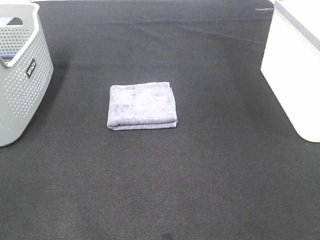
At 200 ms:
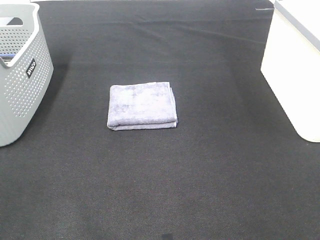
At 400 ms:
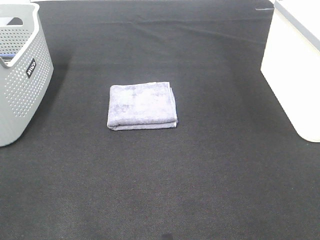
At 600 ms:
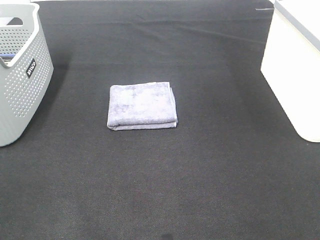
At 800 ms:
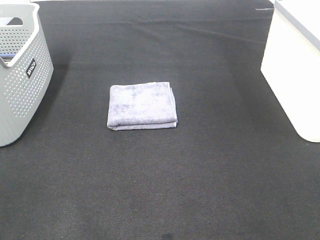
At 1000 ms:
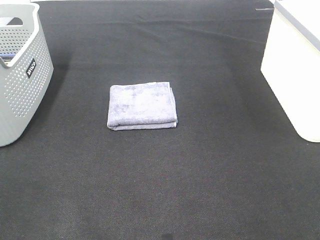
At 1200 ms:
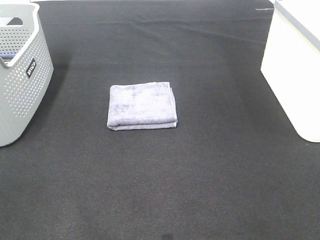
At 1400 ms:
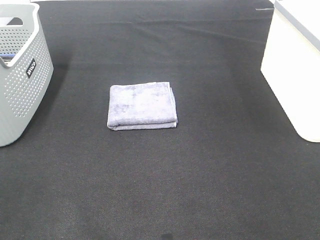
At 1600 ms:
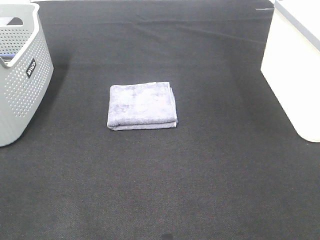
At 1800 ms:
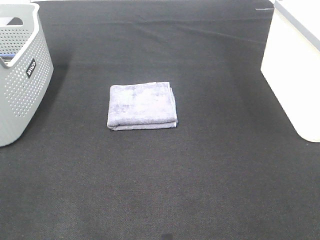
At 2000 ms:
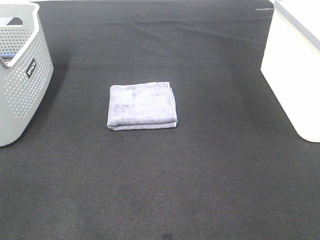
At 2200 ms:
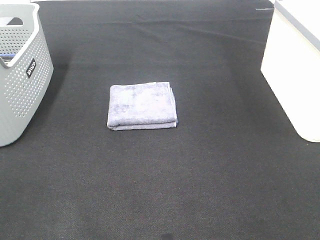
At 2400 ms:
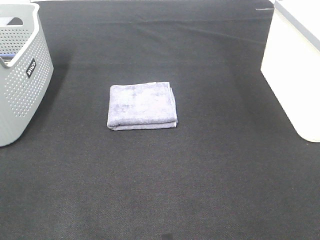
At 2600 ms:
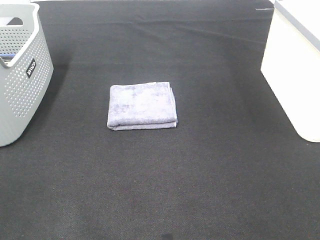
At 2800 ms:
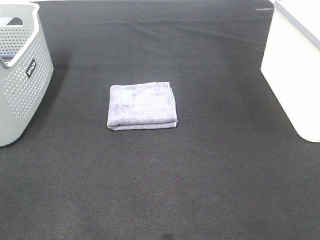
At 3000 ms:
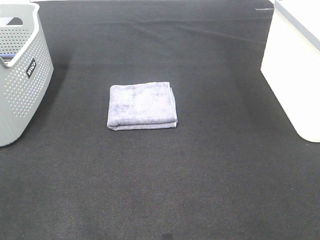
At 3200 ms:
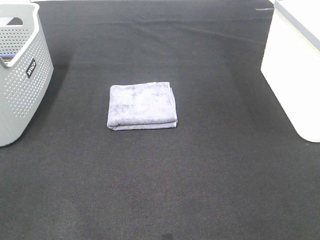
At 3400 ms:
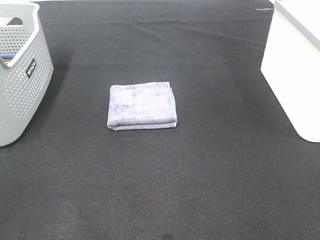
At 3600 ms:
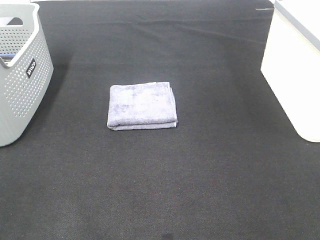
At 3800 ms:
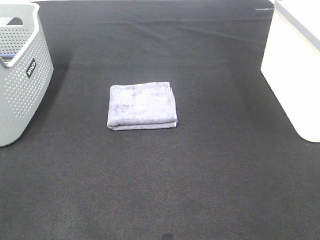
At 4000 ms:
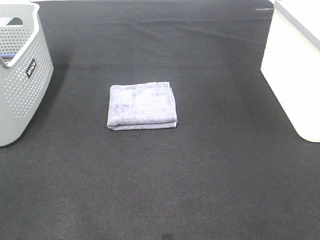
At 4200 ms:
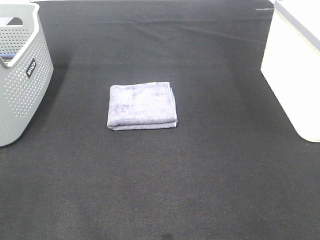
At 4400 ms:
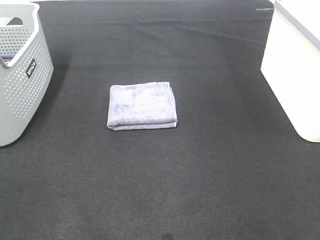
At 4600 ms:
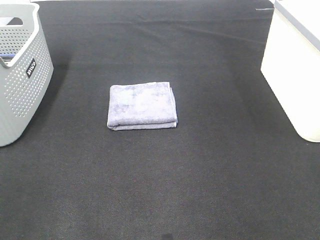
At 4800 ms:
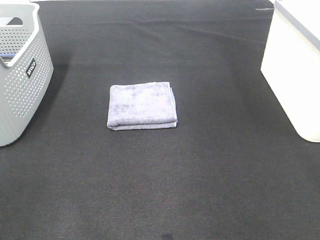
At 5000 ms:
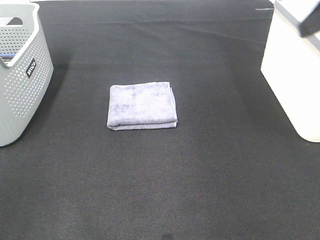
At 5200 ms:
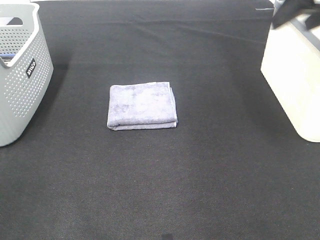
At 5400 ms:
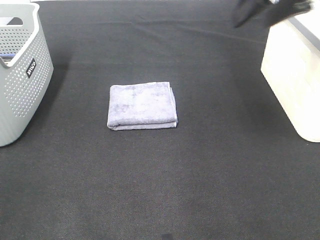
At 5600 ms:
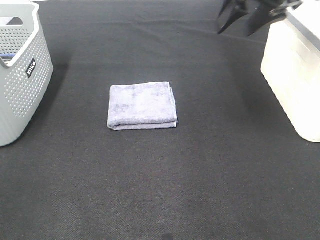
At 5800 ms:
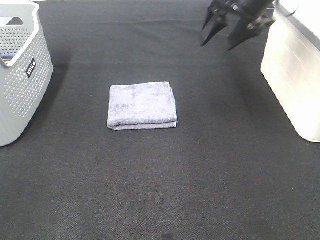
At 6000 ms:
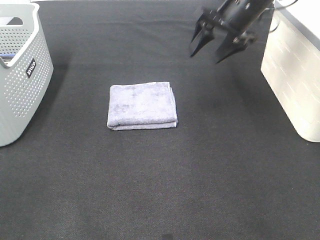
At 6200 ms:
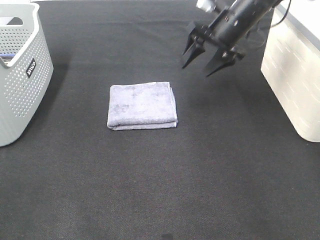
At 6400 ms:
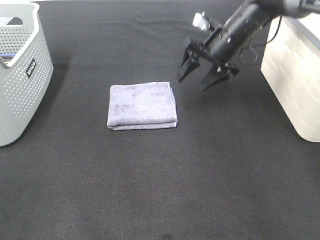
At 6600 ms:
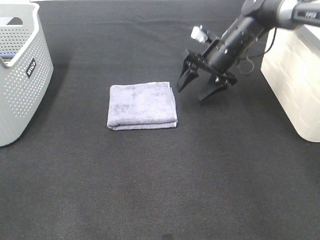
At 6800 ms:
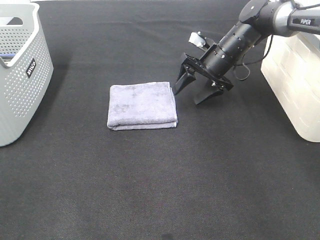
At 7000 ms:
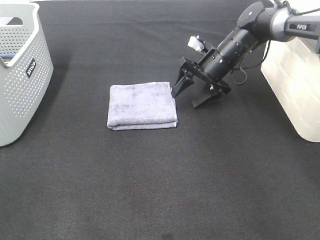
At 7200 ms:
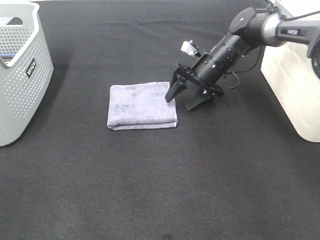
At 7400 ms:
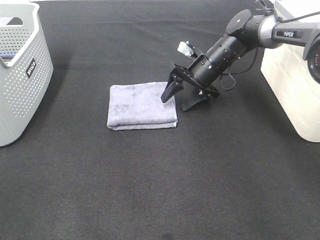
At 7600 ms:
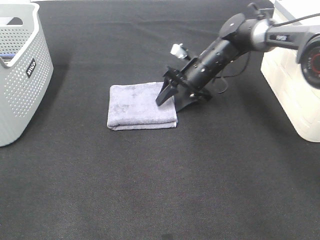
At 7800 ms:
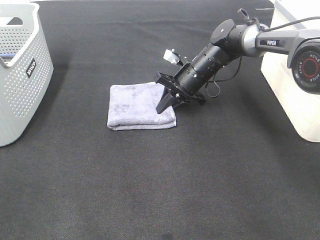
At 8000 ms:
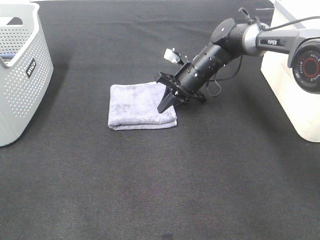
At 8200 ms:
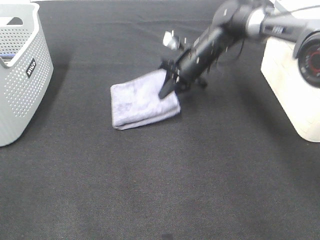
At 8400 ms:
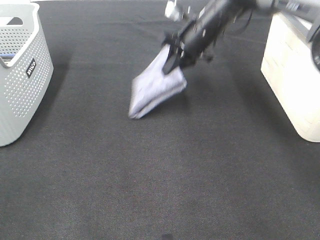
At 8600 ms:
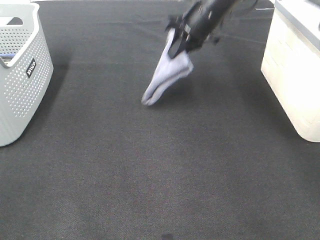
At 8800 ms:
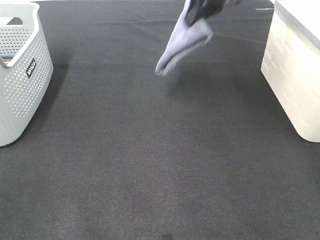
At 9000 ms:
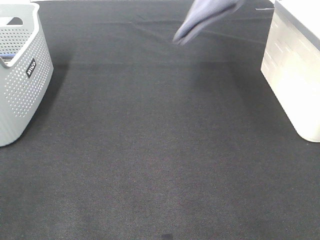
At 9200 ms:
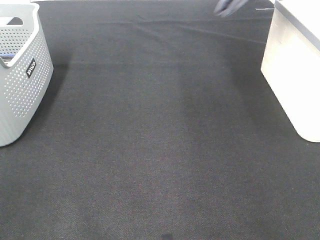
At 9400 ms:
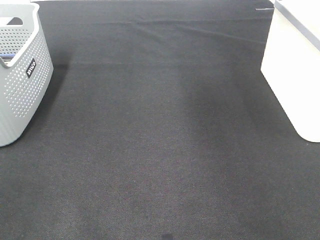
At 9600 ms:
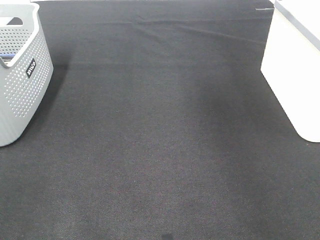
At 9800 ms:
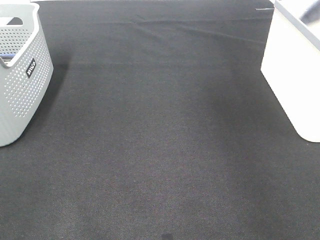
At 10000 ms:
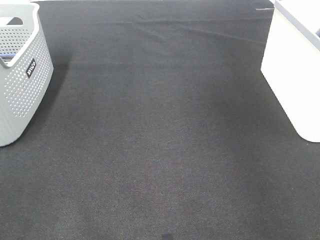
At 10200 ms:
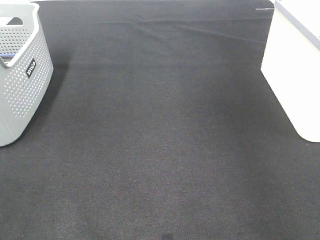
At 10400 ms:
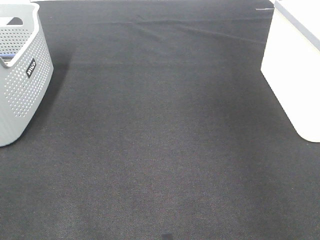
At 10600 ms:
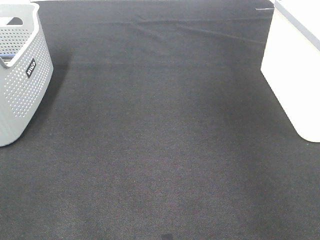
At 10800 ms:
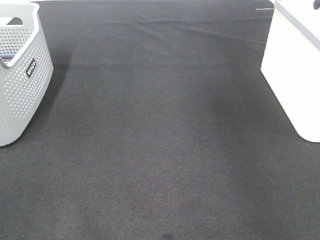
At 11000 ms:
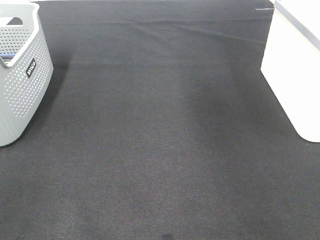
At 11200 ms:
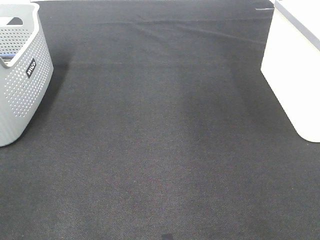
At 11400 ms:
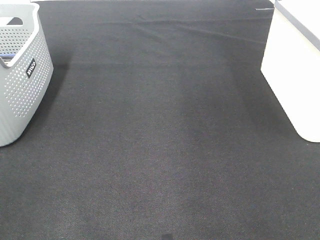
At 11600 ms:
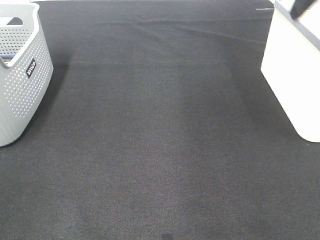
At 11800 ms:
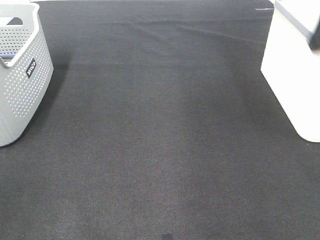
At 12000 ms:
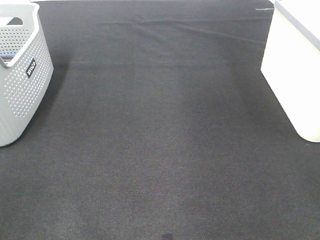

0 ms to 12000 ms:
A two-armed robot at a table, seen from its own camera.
Step, 0 ms to 7800 ms: Right hand: grab the folded grey towel.
Step, 8000 ms to 10600 ms: Right hand: place the grey towel in right basket.
0 ms to 3000 ms: Both grippers stay put.
4400 ms to 6000 ms: The right gripper shifts roughly 35 cm forward.
6000 ms to 7600 ms: The right gripper travels downward and to the left by approximately 15 cm.
7600 ms to 9000 ms: The right gripper shifts approximately 30 cm upward, and closes its fingers.
9000 ms to 10400 ms: The right gripper is displaced to the right by approximately 20 cm, and opens up.

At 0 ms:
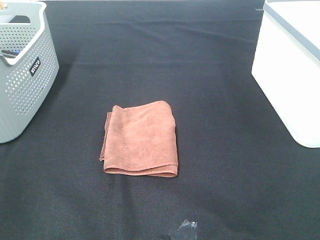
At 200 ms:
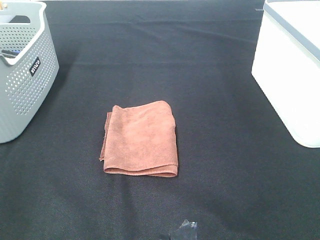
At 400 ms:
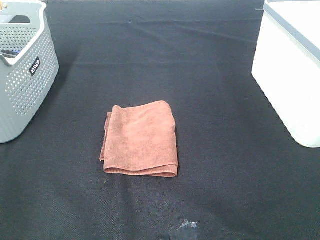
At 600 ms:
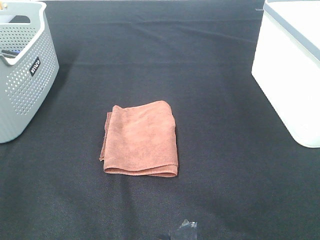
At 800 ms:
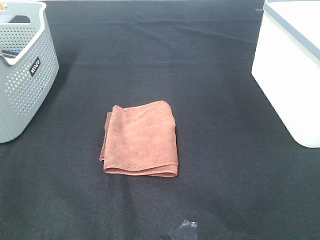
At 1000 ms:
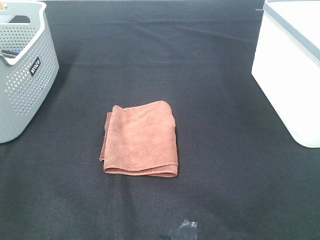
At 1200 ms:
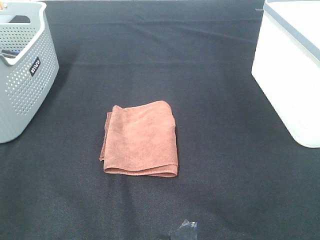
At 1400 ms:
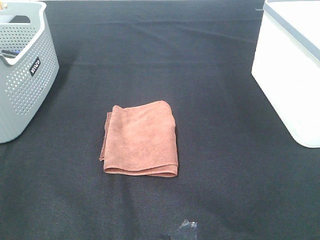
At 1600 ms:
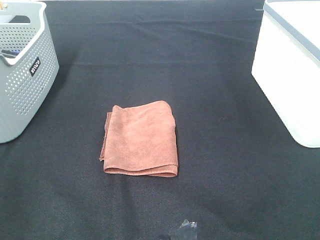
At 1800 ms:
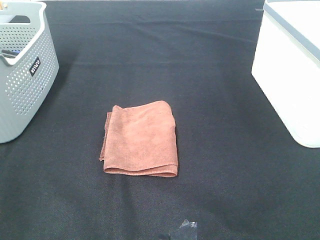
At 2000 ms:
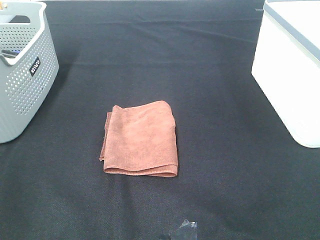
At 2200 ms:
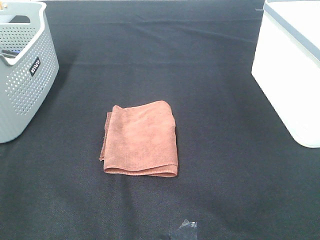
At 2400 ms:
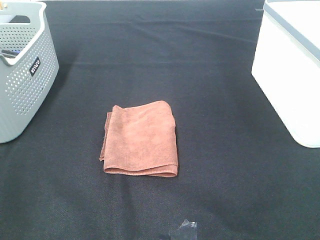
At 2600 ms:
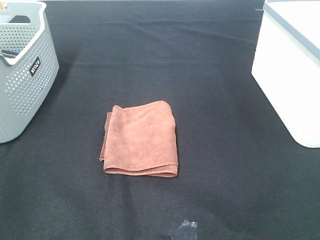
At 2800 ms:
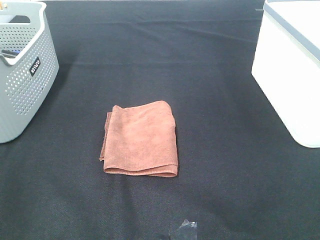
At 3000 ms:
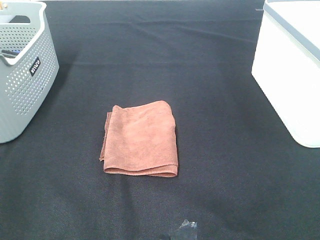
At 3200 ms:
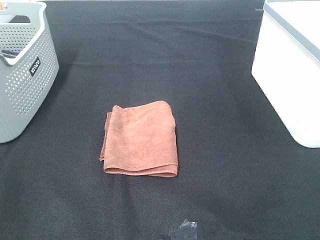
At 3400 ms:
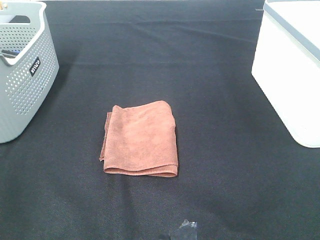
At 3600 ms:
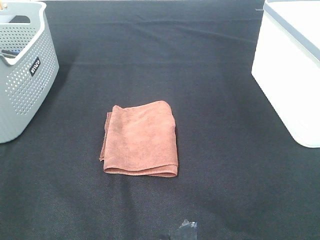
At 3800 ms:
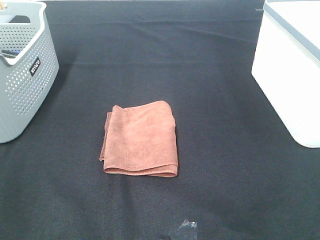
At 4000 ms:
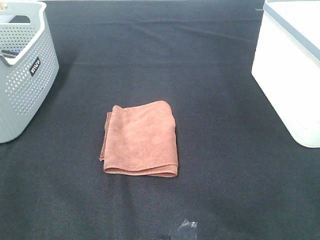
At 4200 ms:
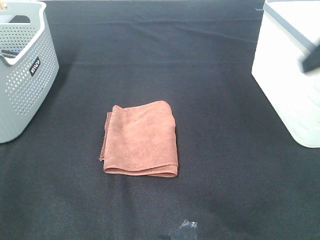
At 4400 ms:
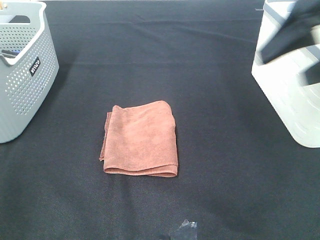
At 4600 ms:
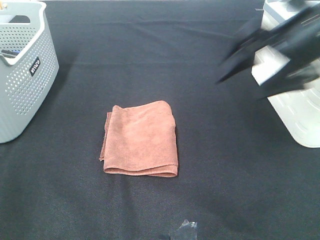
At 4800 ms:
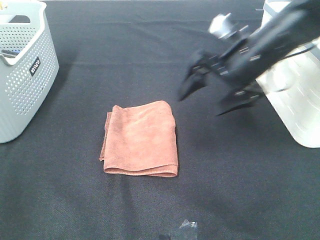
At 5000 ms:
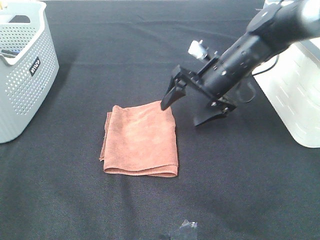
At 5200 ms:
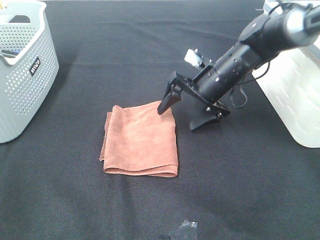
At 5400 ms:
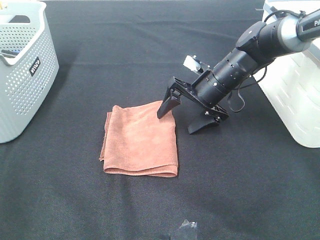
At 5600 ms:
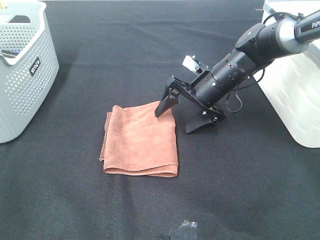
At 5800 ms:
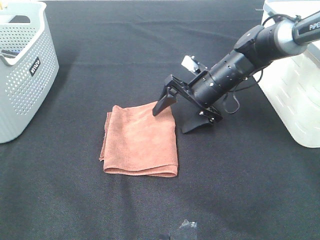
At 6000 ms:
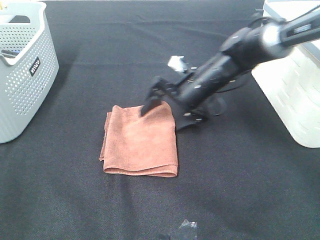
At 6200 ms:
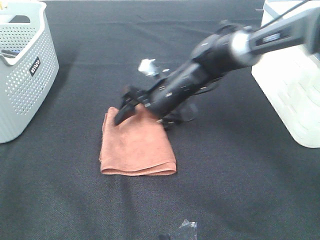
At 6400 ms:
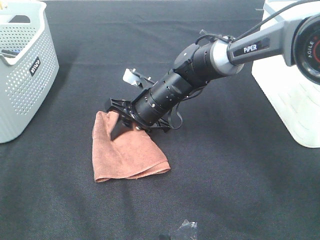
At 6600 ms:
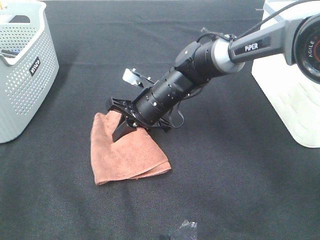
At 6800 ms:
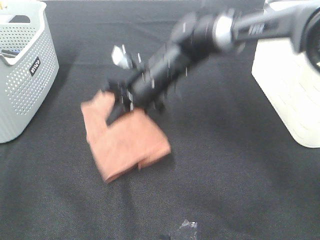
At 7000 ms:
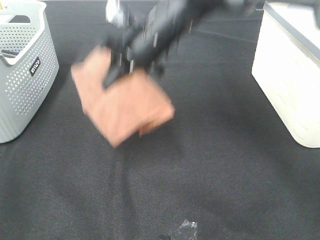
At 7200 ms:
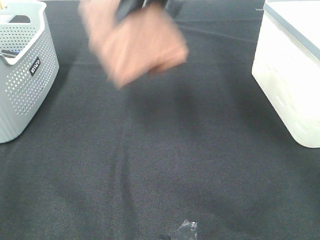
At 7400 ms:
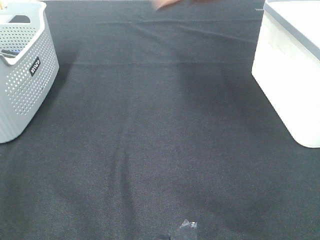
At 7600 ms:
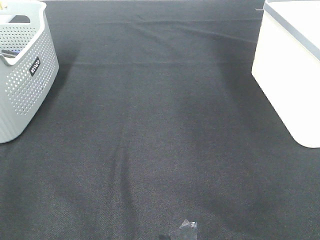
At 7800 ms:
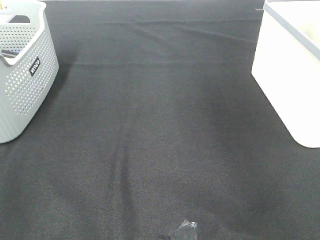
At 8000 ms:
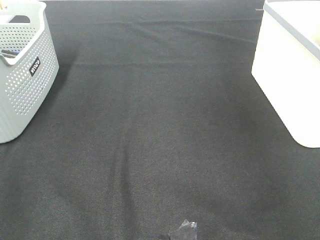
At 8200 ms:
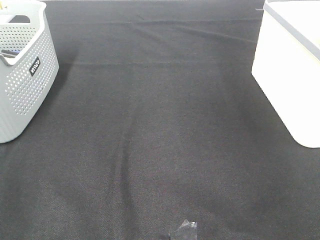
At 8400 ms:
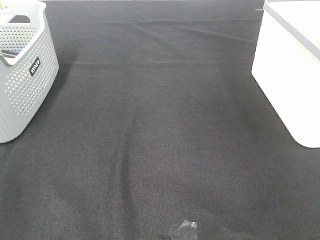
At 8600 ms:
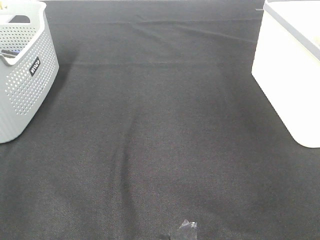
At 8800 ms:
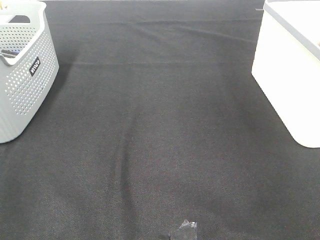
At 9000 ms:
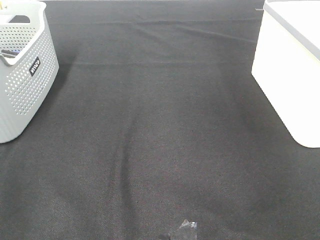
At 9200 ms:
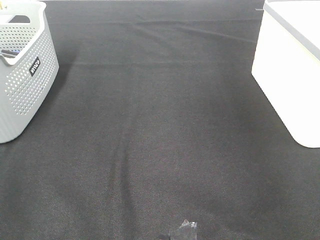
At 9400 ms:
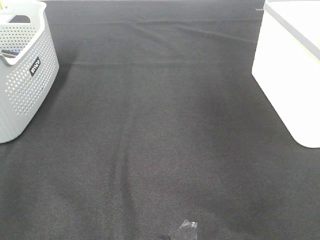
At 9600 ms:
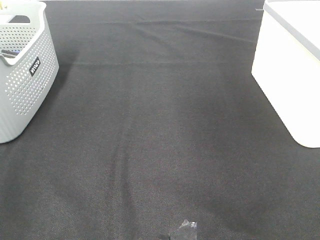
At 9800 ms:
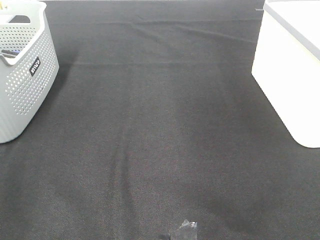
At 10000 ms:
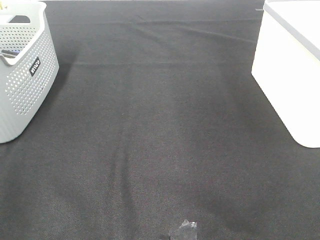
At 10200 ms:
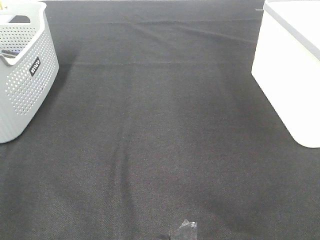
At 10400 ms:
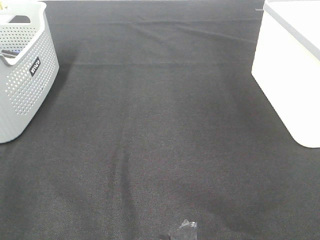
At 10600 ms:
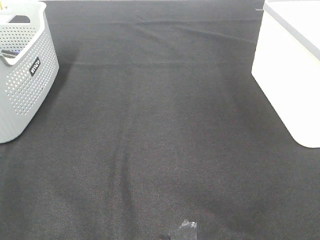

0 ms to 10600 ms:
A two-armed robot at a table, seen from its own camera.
Step, 0 ms to 6400 ms: Right hand: grab the folded brown towel.
Step, 6600 ms to 8800 ms: Right hand: place the brown towel in right basket.
0 ms to 3000 ms: Both grippers stay put.
3000 ms to 4600 ms: The right gripper is displaced forward by approximately 30 cm.
4600 ms to 6000 ms: The right gripper is displaced downward, to the left and forward by about 25 cm.
6000 ms to 7600 ms: The right gripper travels upward by approximately 35 cm, and closes up.
7600 ms to 9000 ms: The right gripper travels to the right and downward by approximately 25 cm, and opens.
